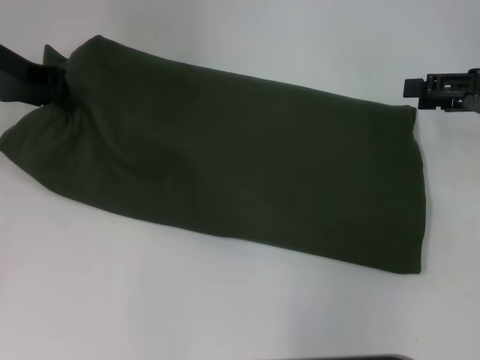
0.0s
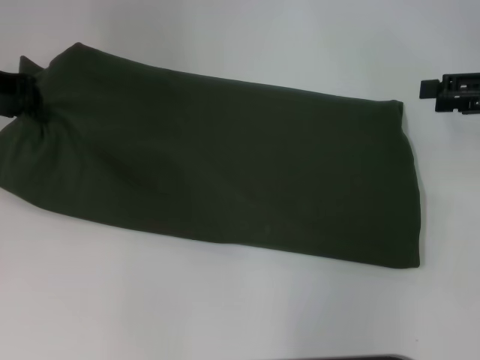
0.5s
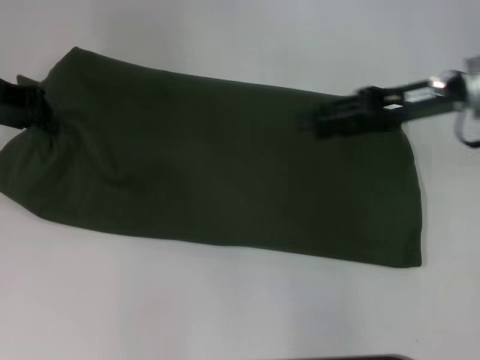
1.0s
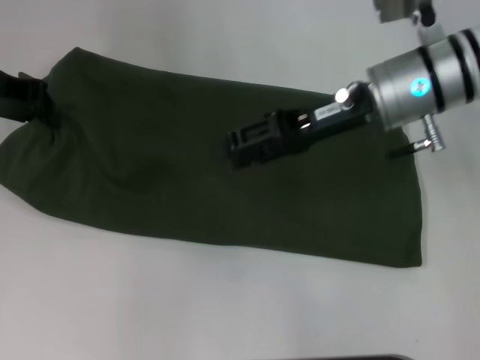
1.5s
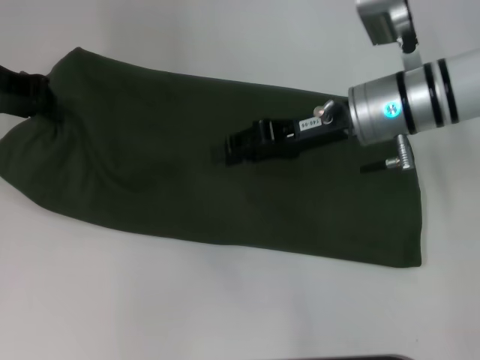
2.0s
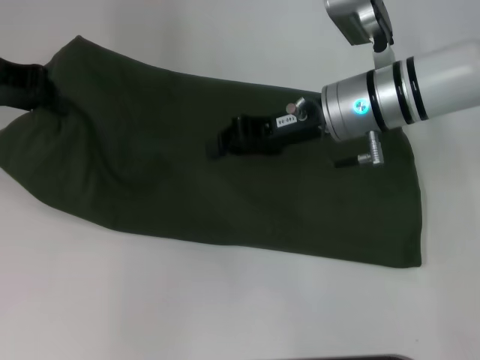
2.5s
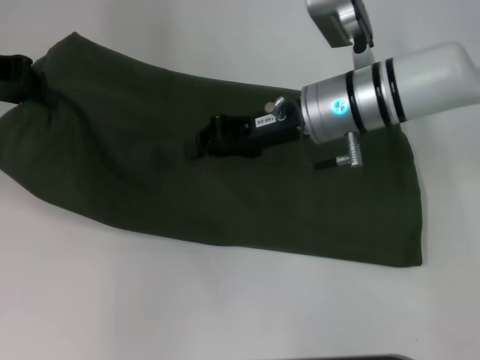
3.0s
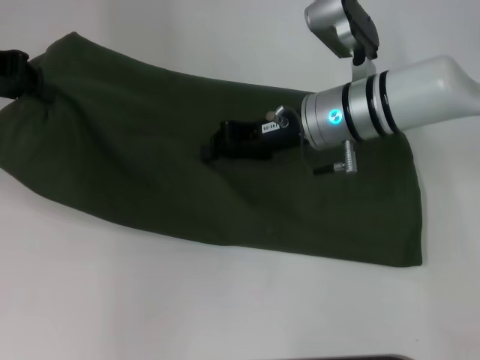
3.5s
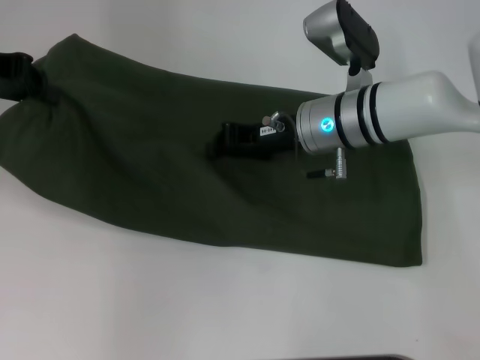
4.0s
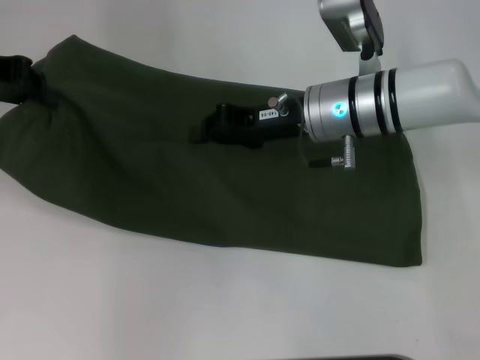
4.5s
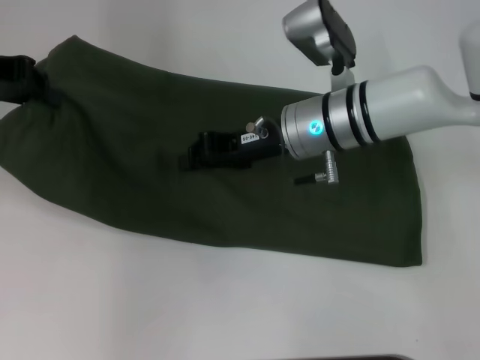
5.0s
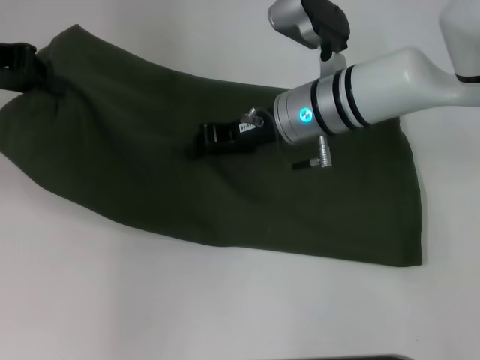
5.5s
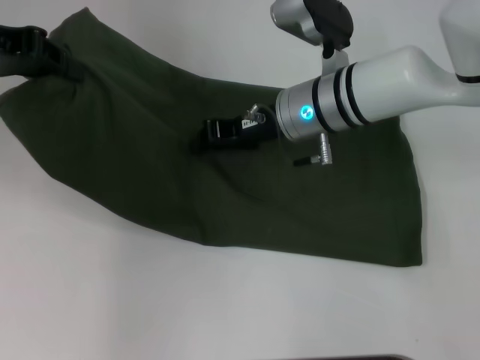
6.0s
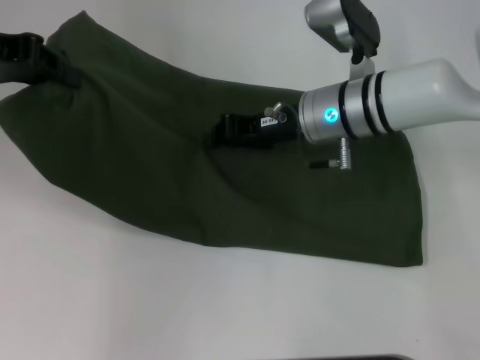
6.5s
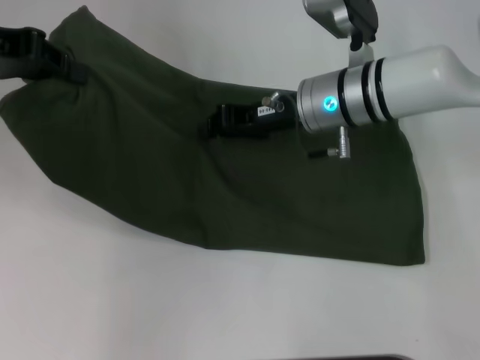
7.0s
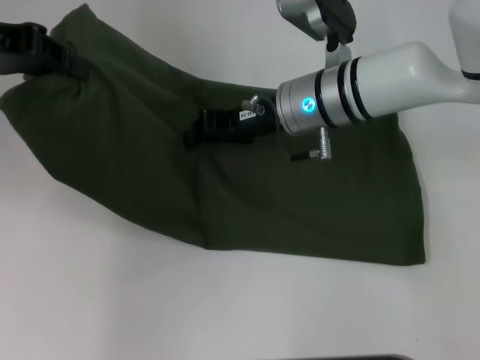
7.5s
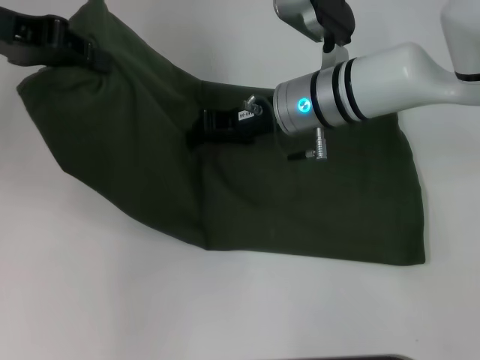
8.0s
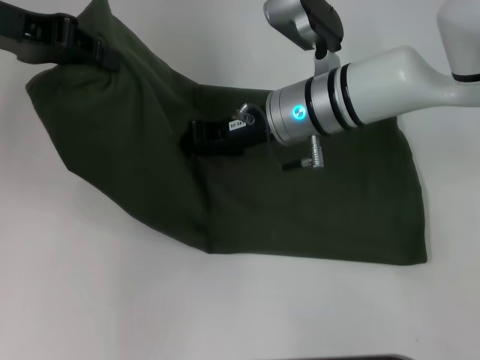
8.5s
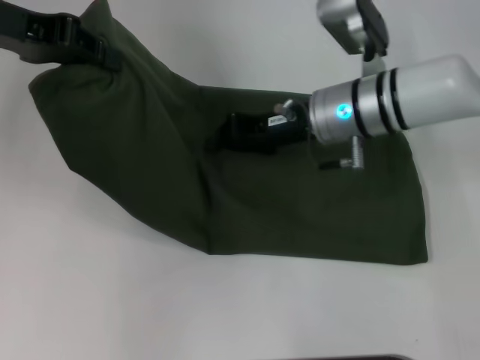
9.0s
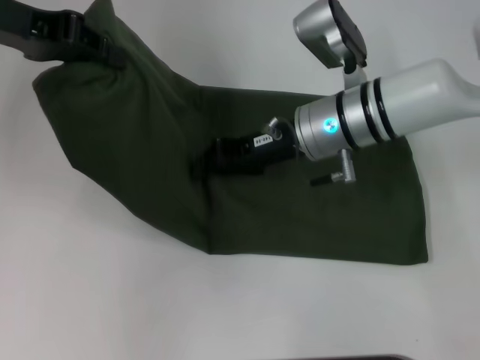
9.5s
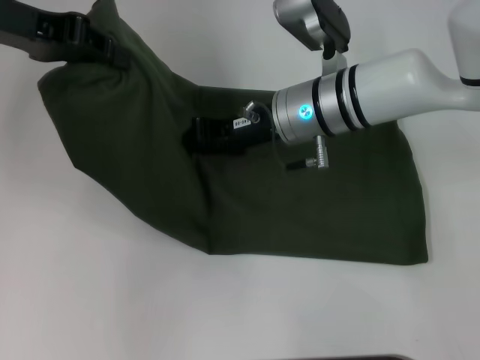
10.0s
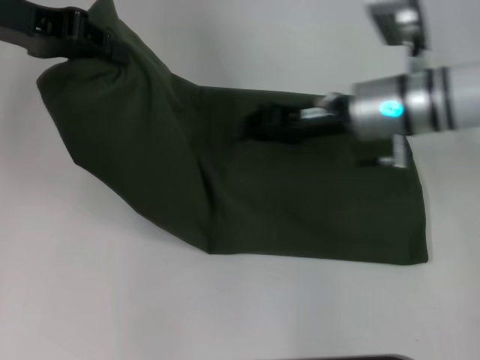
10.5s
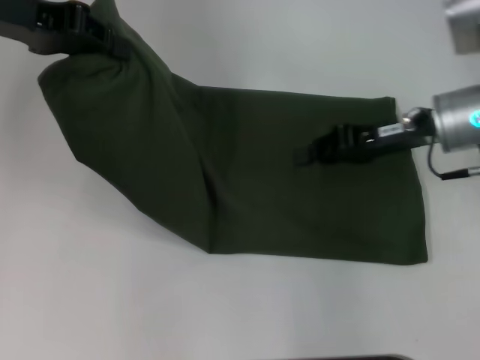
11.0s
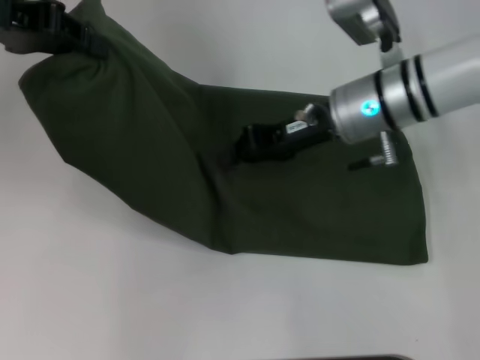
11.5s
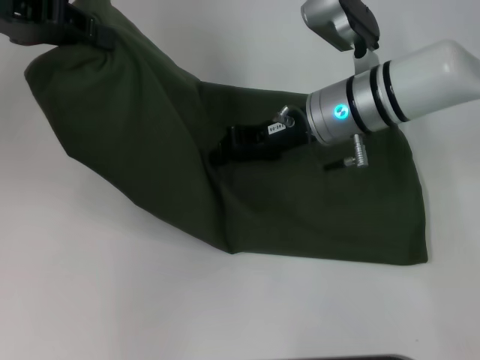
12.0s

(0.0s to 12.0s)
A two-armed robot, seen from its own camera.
0.0s - 2.0s: The right gripper heads to the left, covering roughly 20 cm.
2.0s - 4.0s: The right gripper moves about 5 cm, and closes.
4.0s - 10.0s: The grippers stay close to where they were, moving slightly.
10.0s - 12.0s: The right gripper reaches approximately 15 cm to the right, then returns.

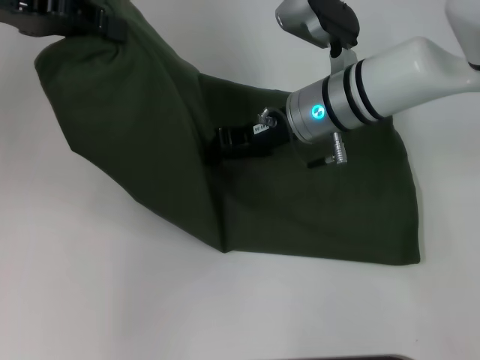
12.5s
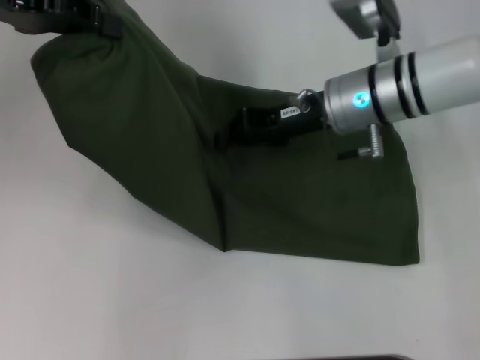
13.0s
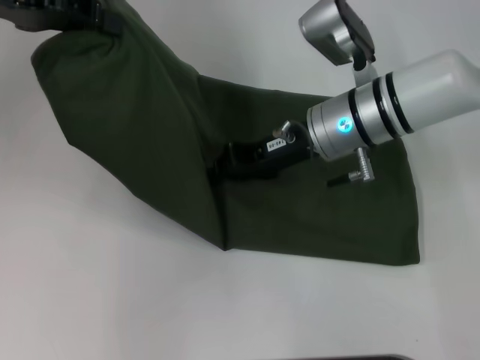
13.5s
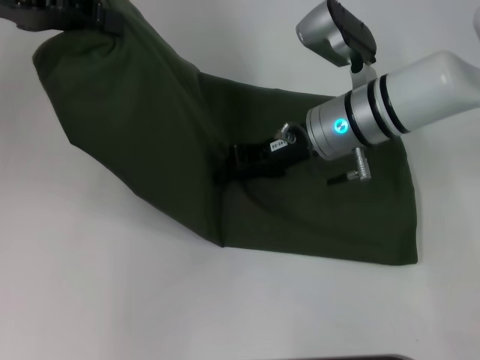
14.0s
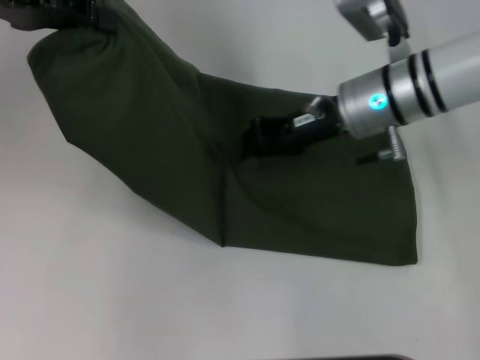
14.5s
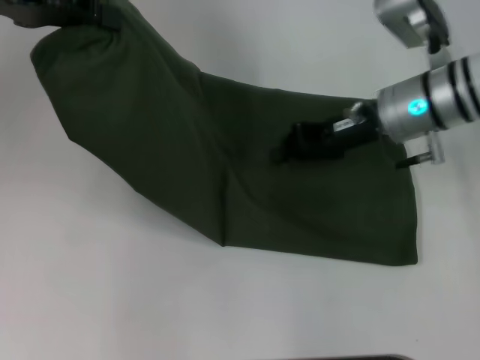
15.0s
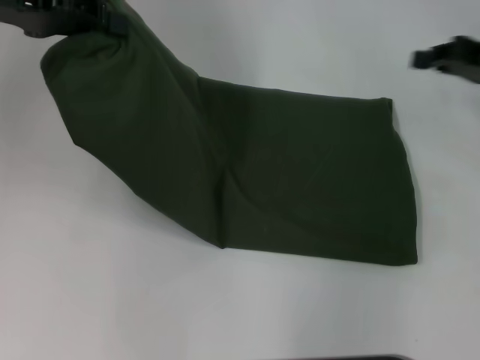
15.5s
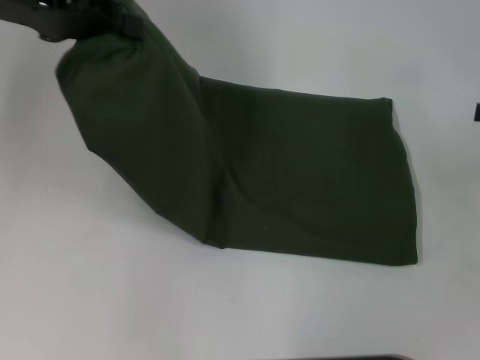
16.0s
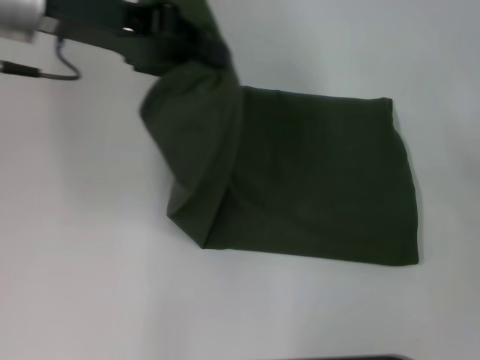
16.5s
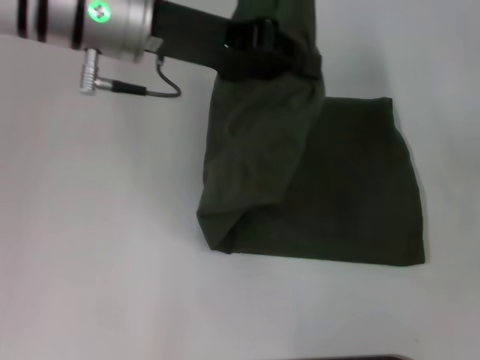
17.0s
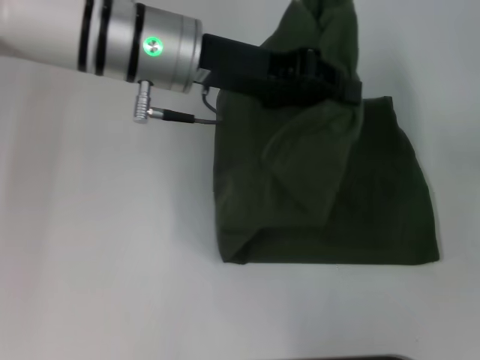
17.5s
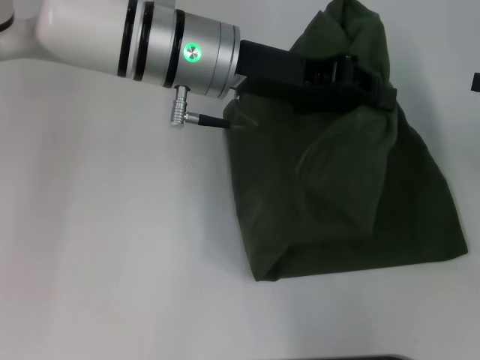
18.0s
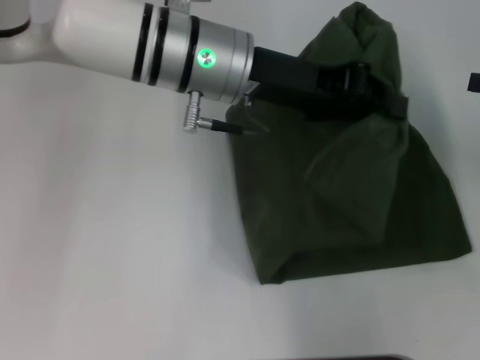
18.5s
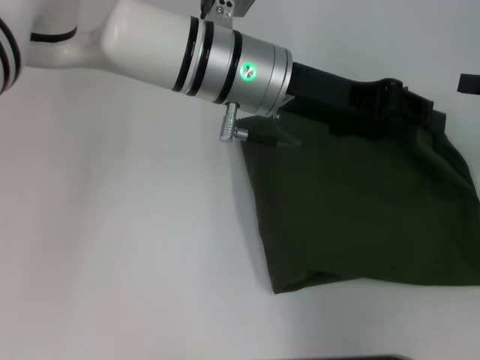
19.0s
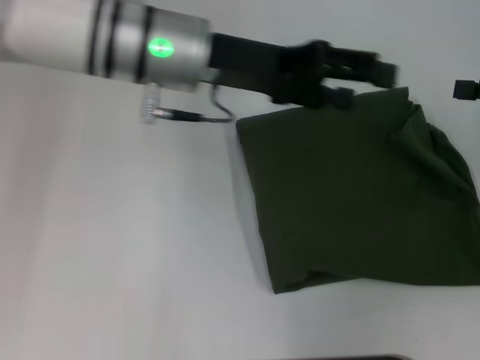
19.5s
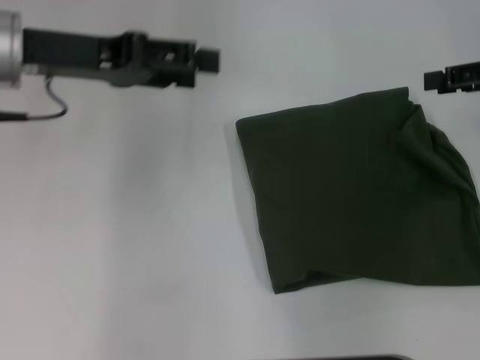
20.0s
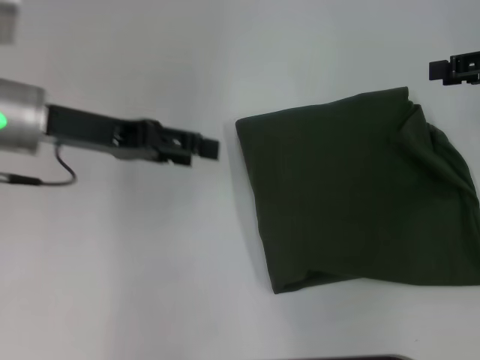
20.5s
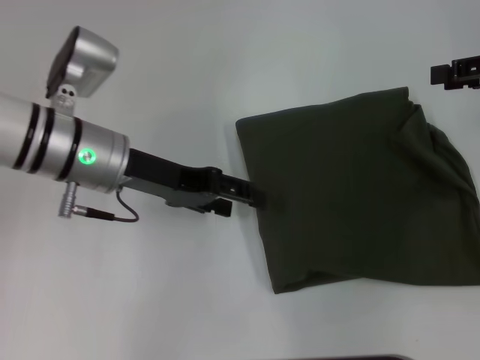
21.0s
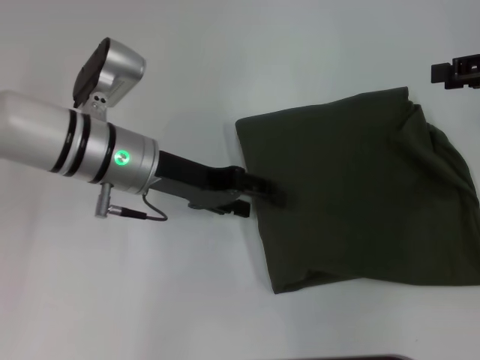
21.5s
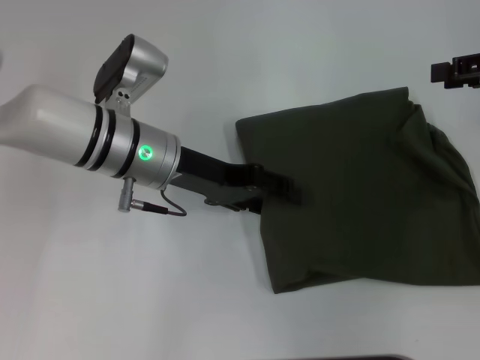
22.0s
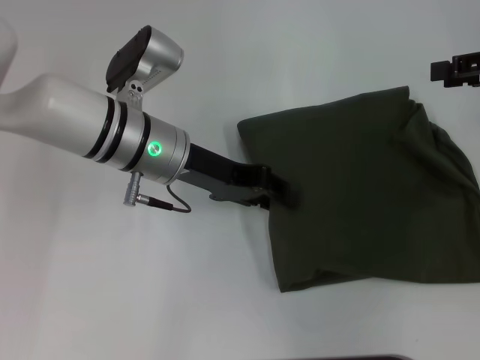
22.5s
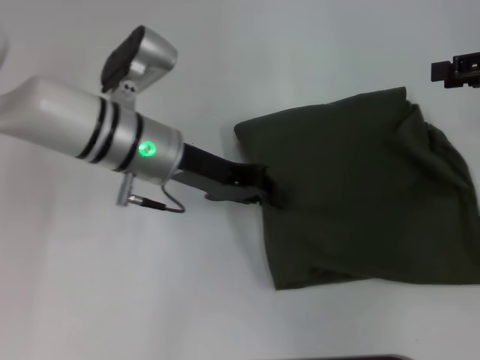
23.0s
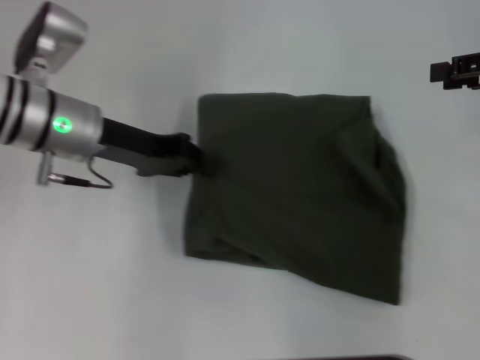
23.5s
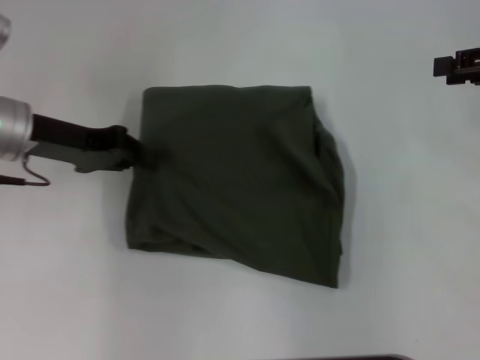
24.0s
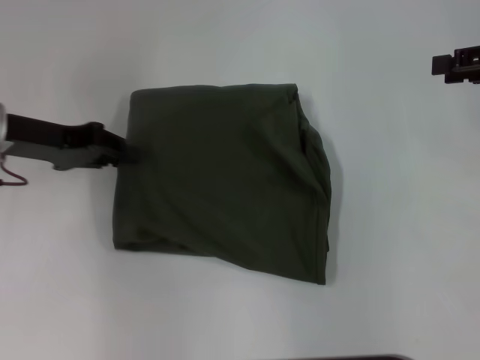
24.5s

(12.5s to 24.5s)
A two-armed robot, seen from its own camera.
Step, 12.5s - 19.0s: Fold the clothes with your left hand.
12.5s - 14.5s: The right gripper moves roughly 5 cm.
14.5s - 16.5s: The right gripper goes some 30 cm to the right and backward; the left gripper moves to the right, roughly 5 cm.
16.5s - 18.5s: The left gripper heads to the right and downward, covering approximately 15 cm.
18.5s - 20.5s: The right gripper goes some 5 cm forward, and opens up, while the left gripper shifts some 15 cm to the left, and opens its fingers.
20.5s - 22.5s: The left gripper shifts approximately 15 cm to the right and downward.
22.5s - 24.5s: The left gripper shifts some 15 cm to the left, and closes.

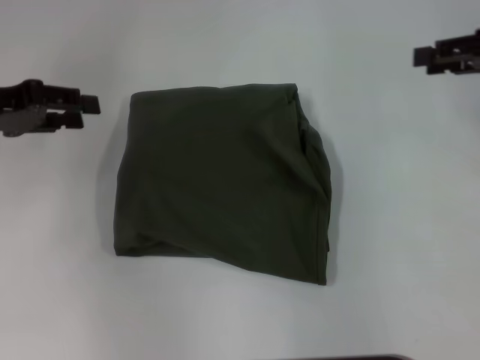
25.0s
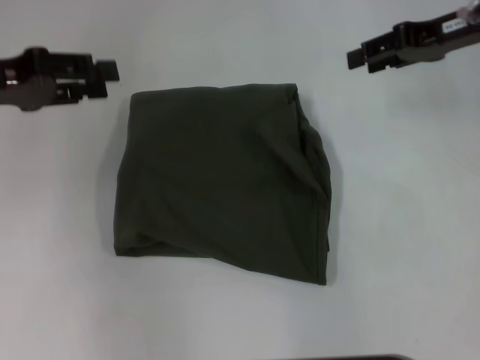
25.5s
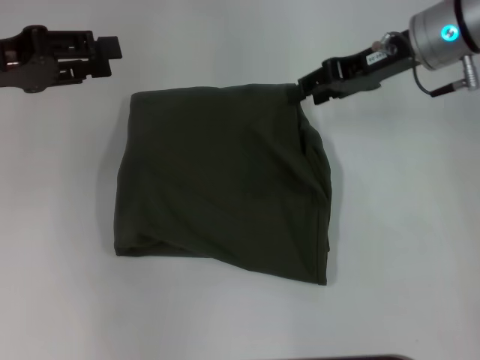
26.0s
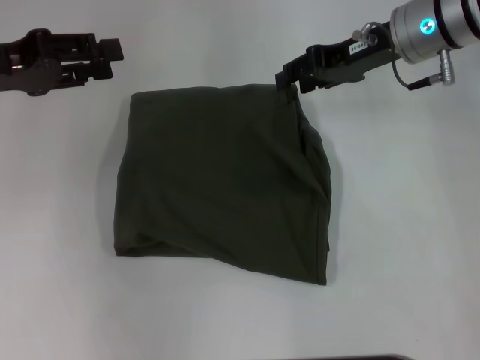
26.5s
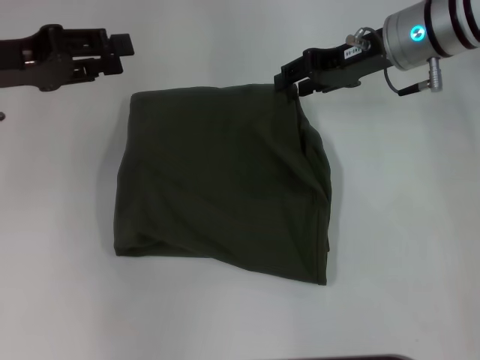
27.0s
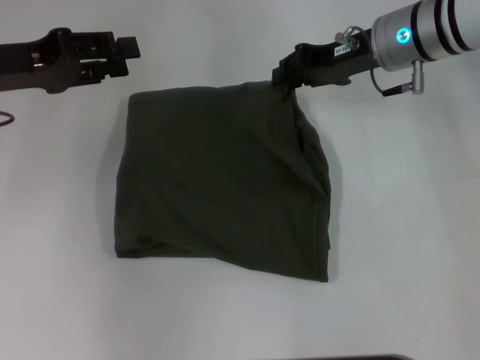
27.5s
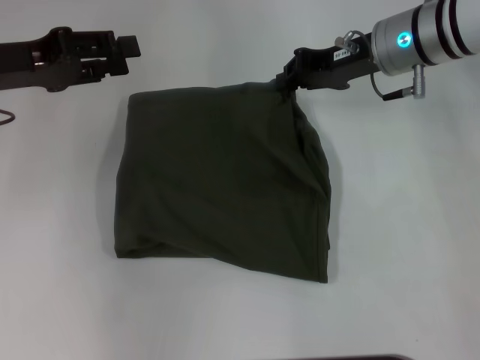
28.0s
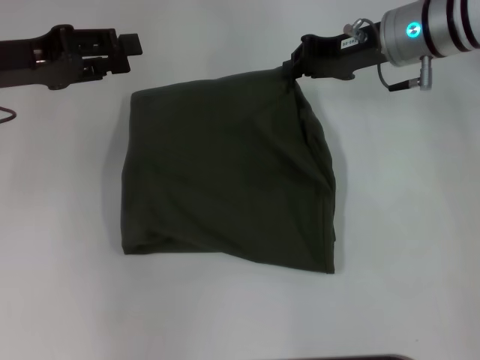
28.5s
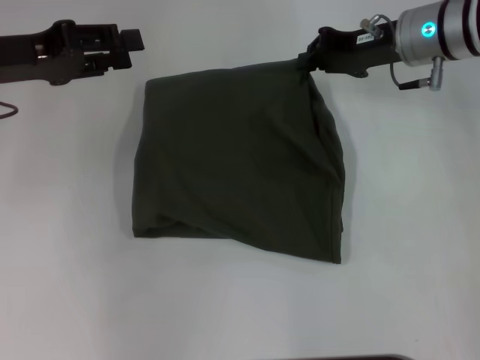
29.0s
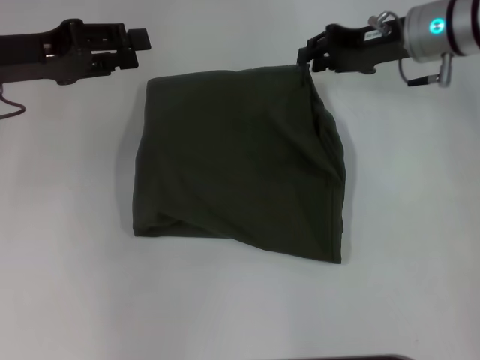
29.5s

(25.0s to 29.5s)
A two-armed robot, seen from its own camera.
25.0s - 27.0s: The right gripper shifts roughly 15 cm to the left.
27.0s - 29.5s: The right gripper closes its fingers.
